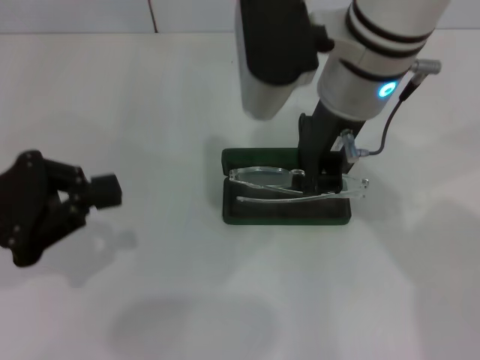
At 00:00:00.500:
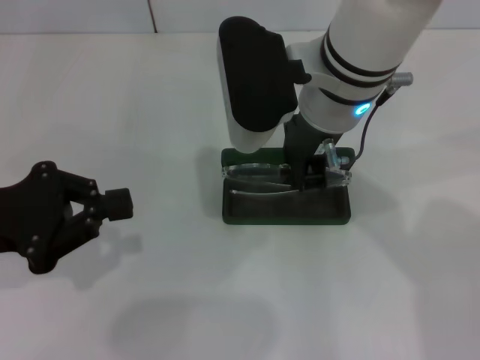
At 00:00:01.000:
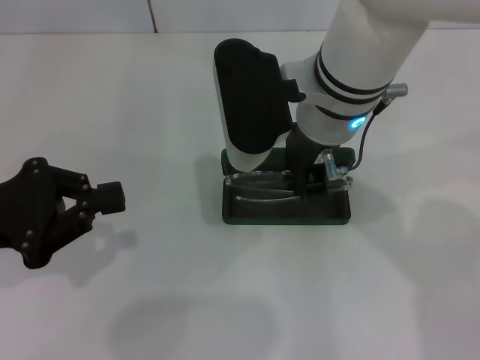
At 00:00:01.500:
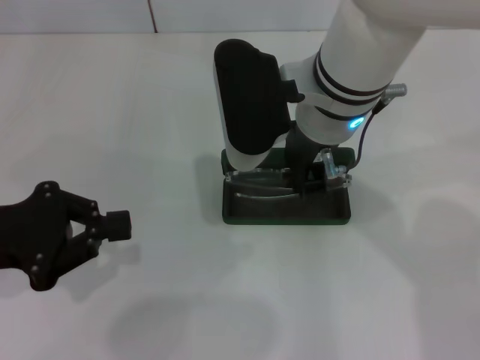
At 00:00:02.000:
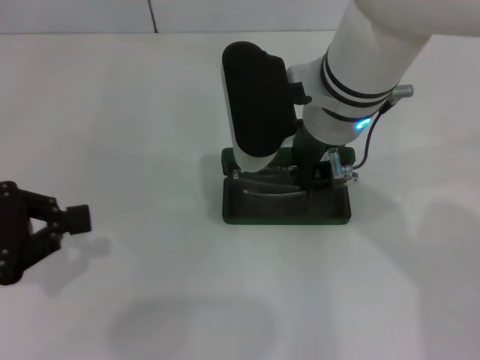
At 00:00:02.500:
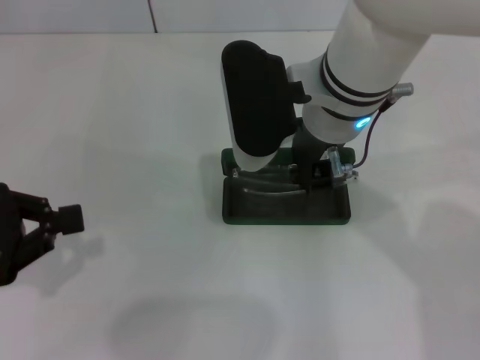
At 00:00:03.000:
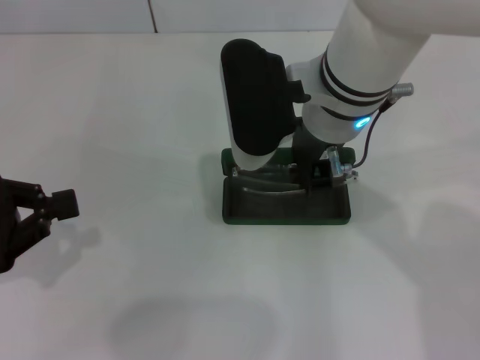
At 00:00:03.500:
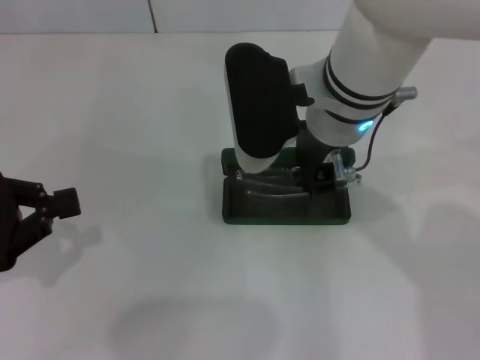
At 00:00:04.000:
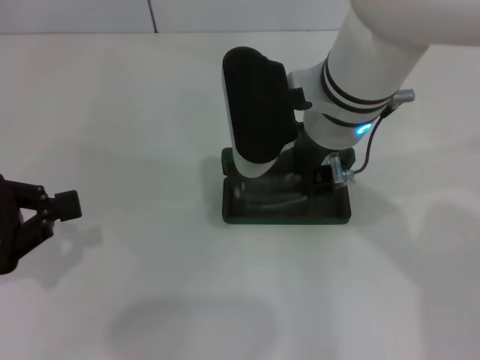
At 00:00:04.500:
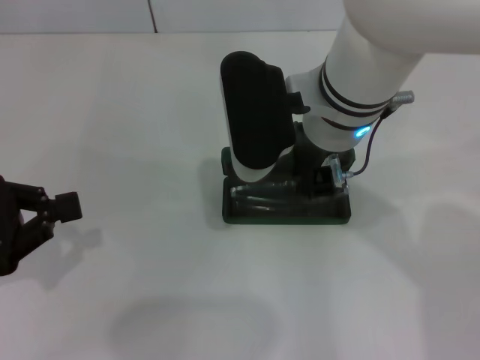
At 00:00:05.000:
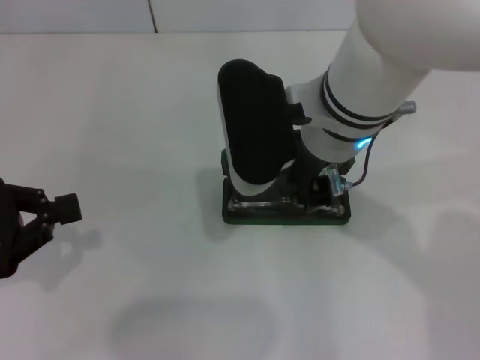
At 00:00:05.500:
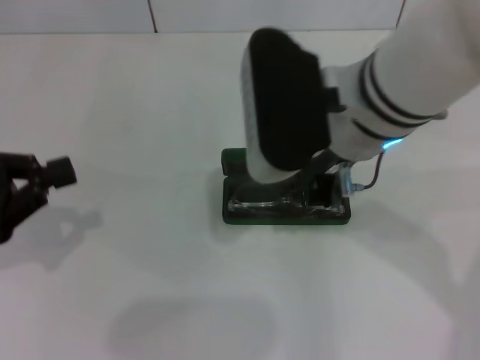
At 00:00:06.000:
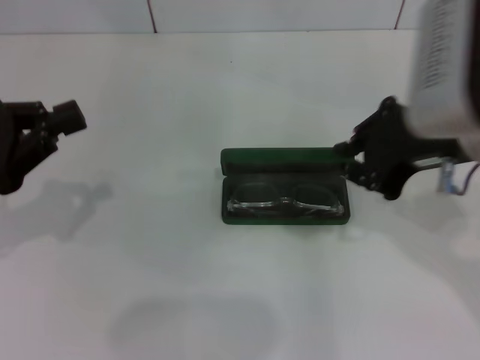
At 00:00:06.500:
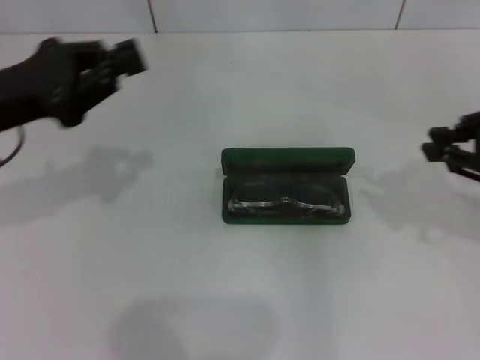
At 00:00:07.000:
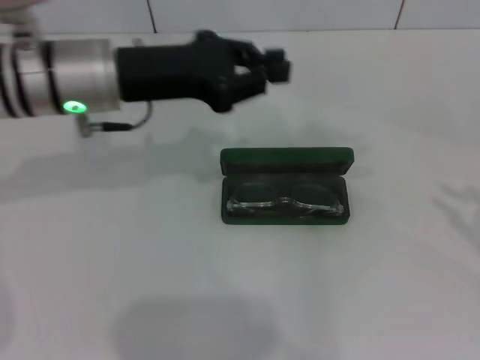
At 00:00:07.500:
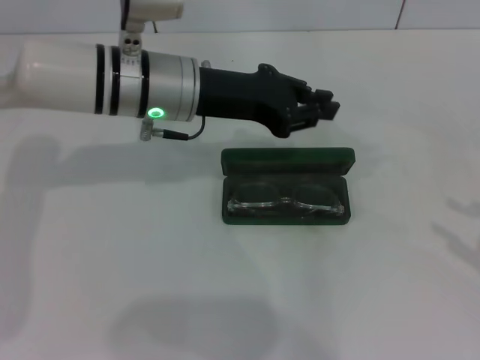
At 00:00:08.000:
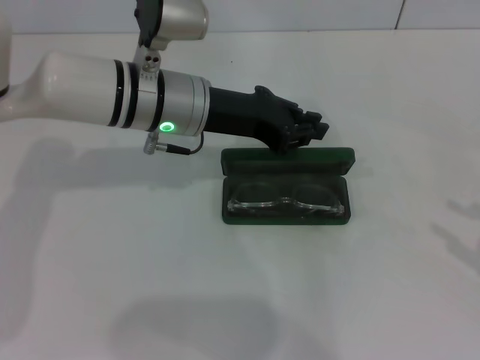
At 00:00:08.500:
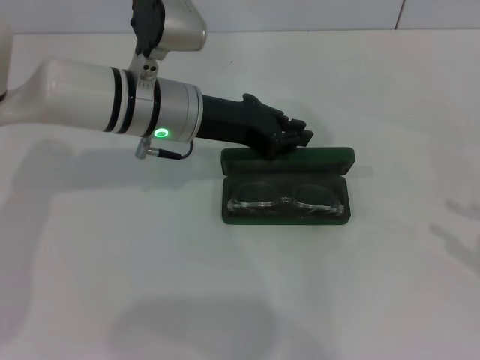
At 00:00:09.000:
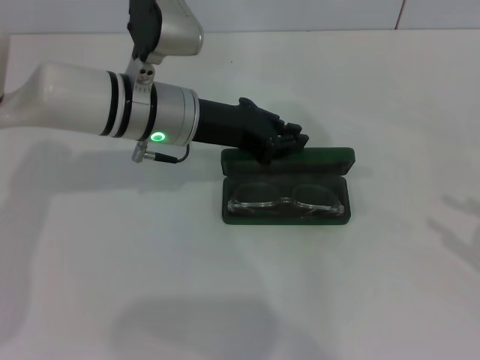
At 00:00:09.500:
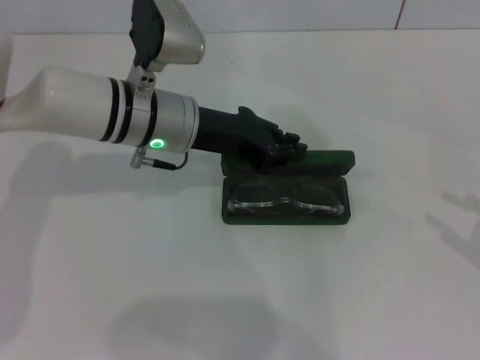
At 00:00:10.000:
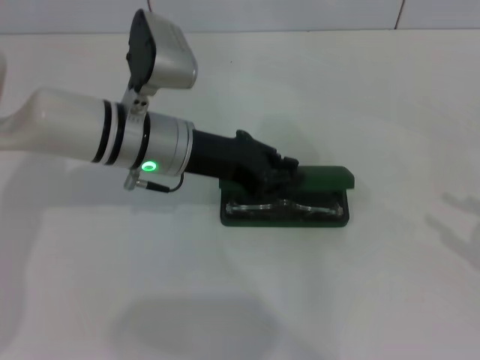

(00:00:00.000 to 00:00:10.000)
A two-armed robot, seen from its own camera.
Step, 00:00:00.000 - 00:00:04.500: Put the glasses into the case with your right hand.
00:00:00.000 - 00:00:02.000: The grippers stay close to where they were, moving slightly.
00:00:02.000 - 00:00:04.000: Both grippers stay put.
00:00:04.000 - 00:00:06.000: The right gripper goes roughly 15 cm to the right and backward.
00:00:06.000 - 00:00:08.000: The left gripper is displaced to the right and forward by some 25 cm. The right gripper is displaced to the right and downward by some 25 cm, and opens its fingers.
00:00:08.000 - 00:00:10.000: The grippers make only small movements.

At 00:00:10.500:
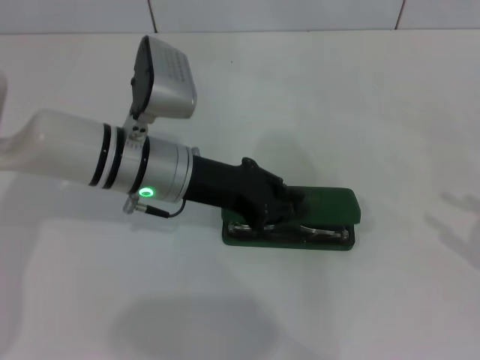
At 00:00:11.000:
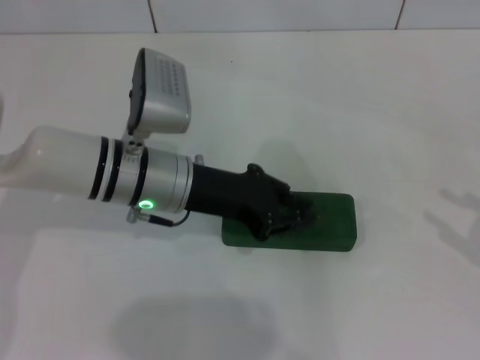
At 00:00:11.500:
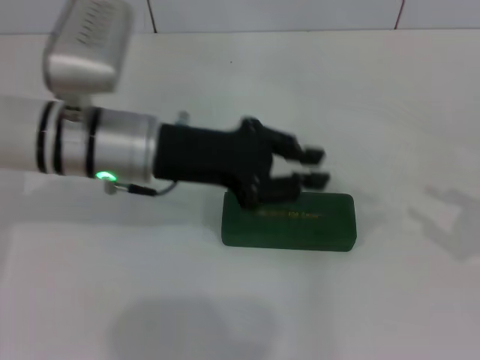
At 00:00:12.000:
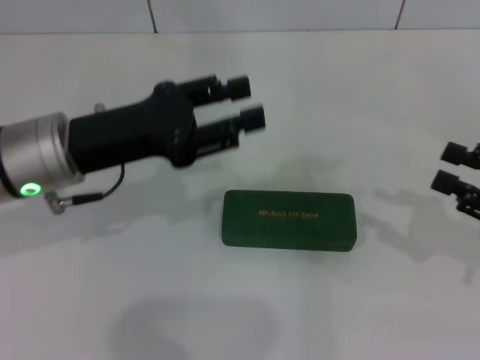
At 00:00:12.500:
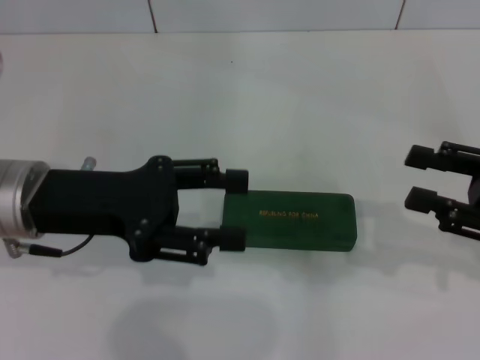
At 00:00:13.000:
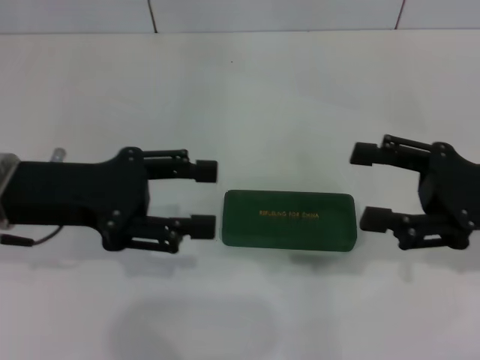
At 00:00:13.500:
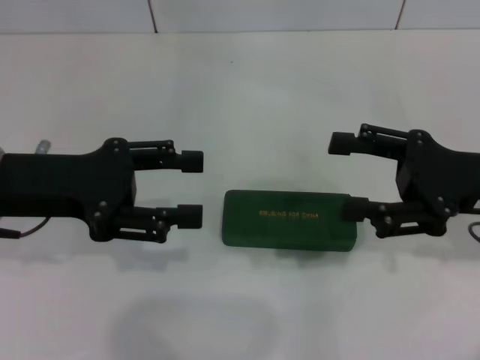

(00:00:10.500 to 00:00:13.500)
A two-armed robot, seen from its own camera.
00:00:10.500 - 00:00:12.000: The grippers both shift to the left by some 5 cm.
00:00:12.000 - 00:00:13.500: The right gripper moves to the left, some 10 cm; the left gripper shifts by approximately 5 cm, and opens up.

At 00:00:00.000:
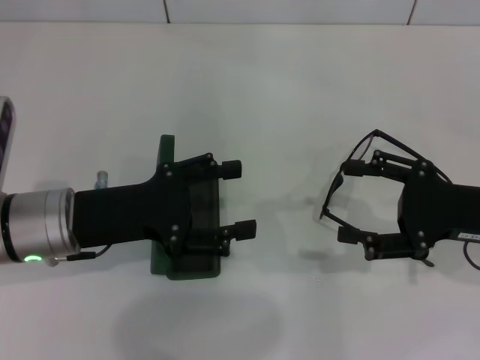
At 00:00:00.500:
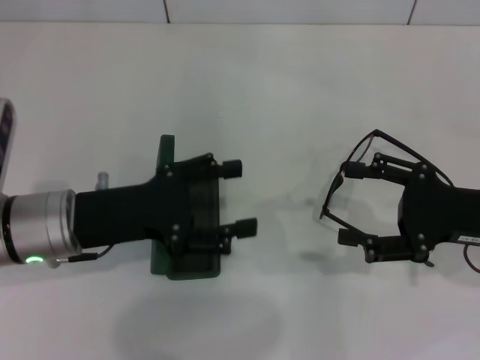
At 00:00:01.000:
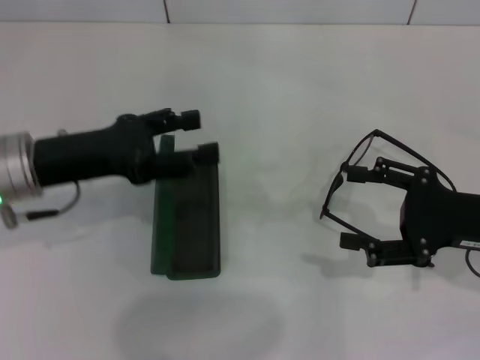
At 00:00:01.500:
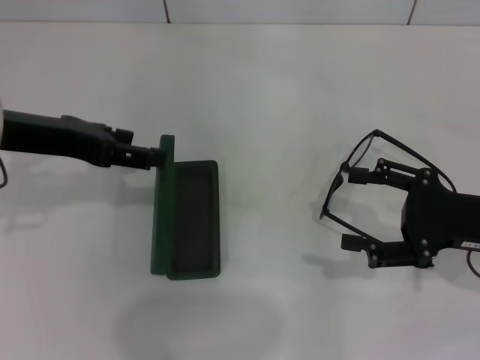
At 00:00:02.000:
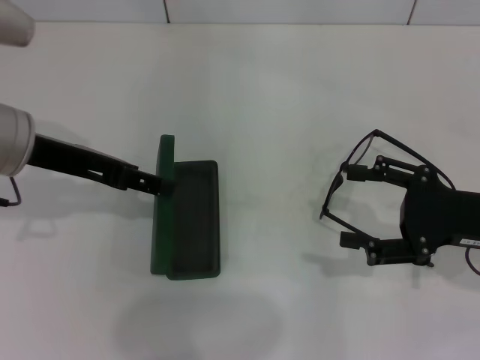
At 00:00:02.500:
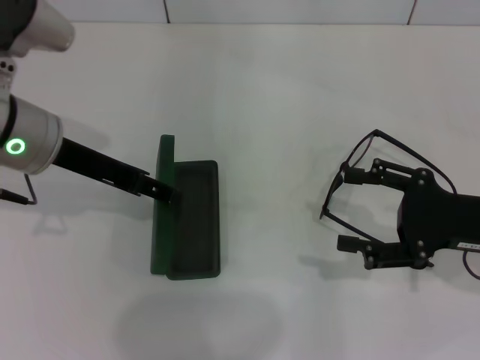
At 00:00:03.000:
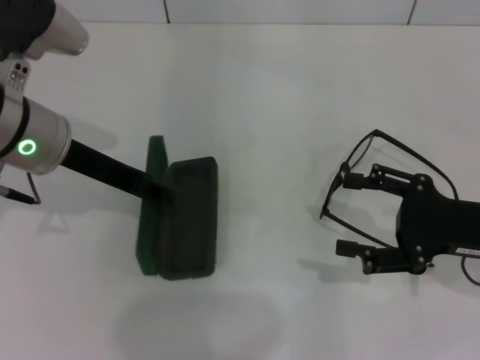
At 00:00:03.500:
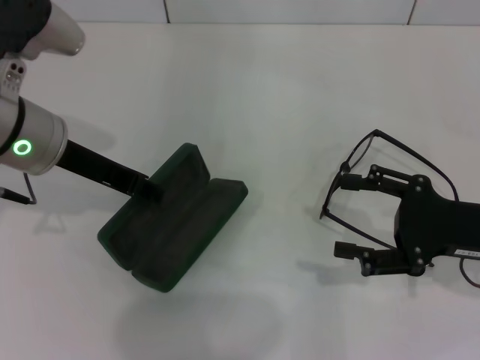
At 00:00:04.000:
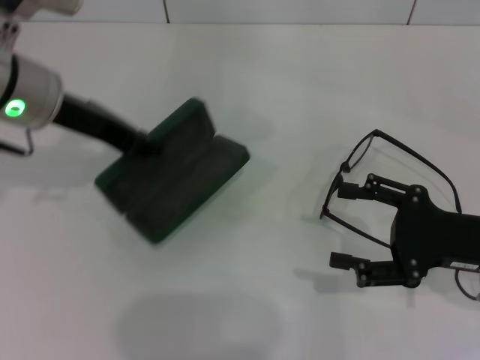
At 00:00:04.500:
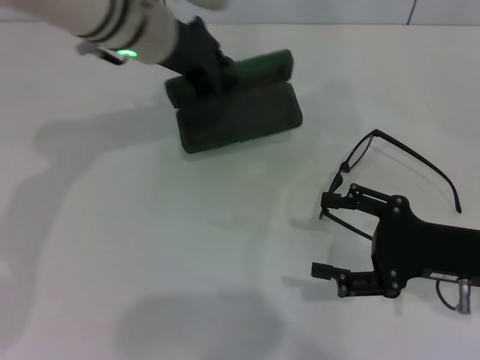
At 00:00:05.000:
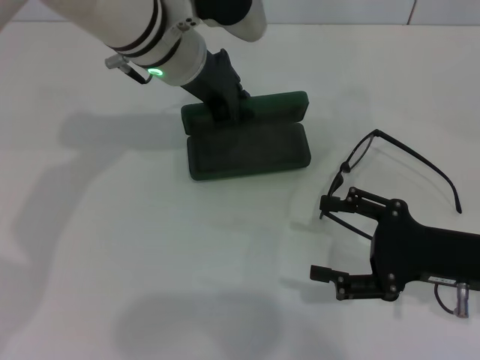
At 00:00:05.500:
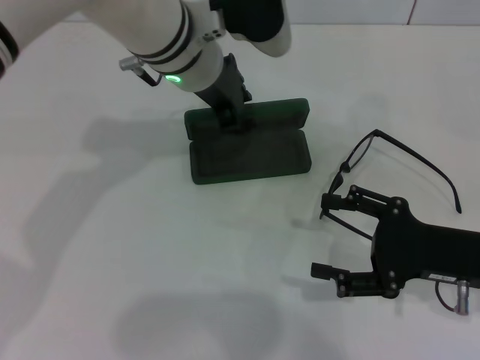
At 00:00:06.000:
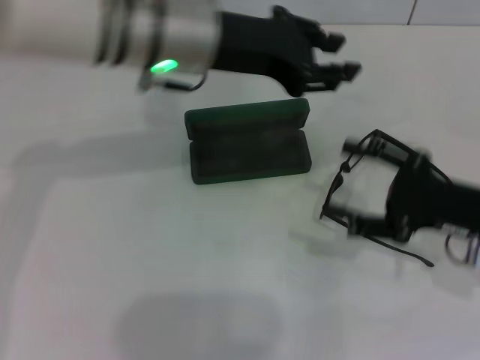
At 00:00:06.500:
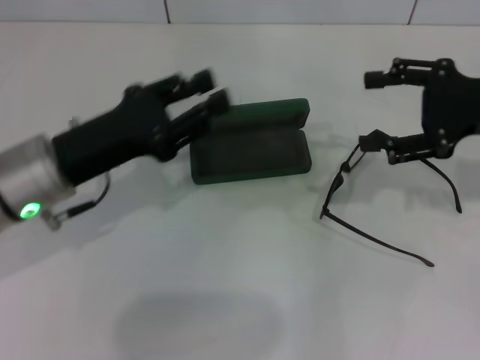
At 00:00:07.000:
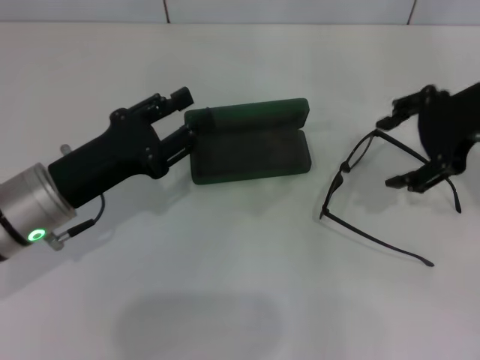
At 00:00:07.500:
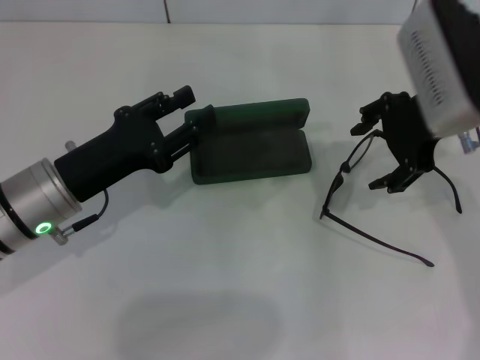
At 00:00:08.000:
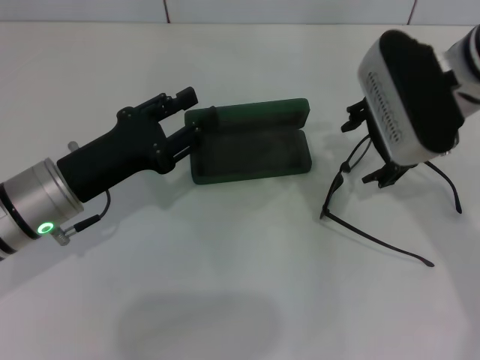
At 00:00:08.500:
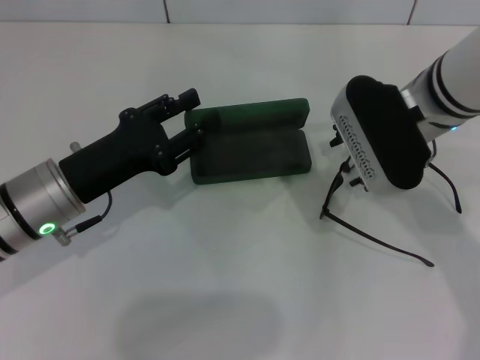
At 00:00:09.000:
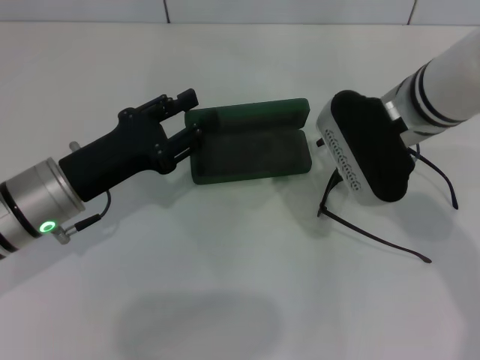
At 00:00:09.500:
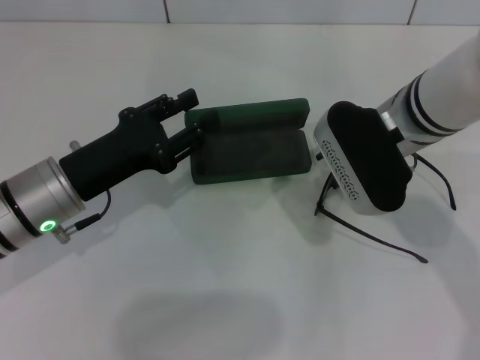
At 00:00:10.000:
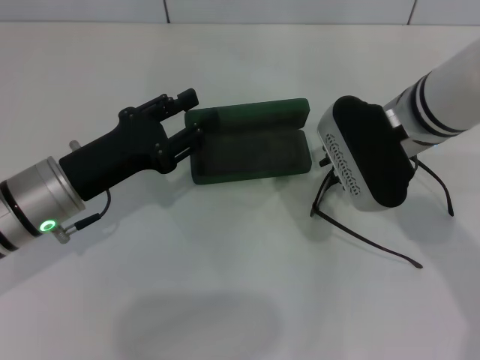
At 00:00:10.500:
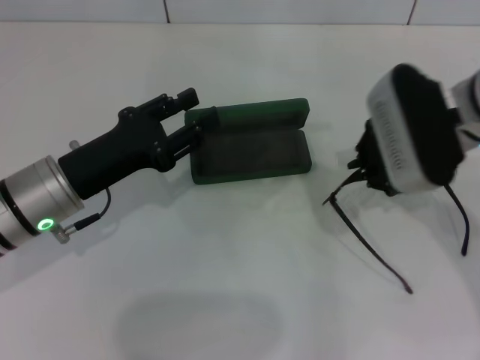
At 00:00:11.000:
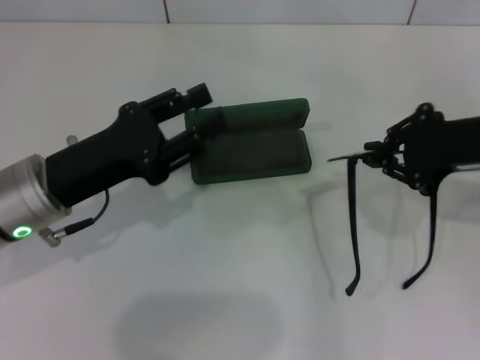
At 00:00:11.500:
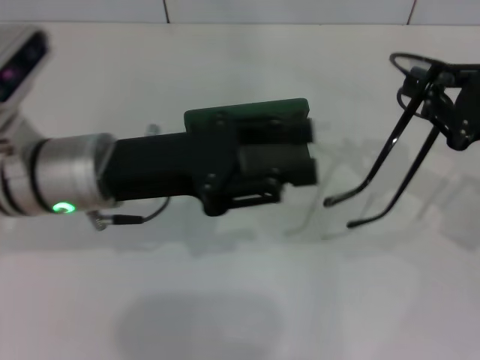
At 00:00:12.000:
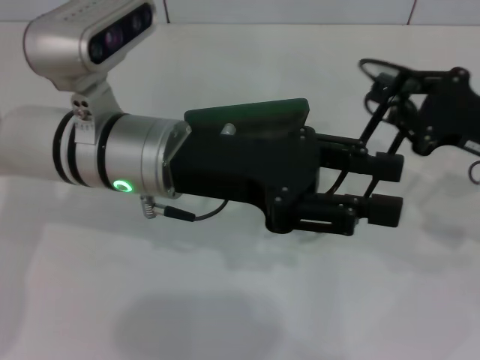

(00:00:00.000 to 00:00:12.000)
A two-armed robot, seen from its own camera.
Step, 00:00:00.000 - 00:00:03.500: Grab the glasses case with your left hand.
Step, 00:00:04.000 - 00:00:05.000: Place the glasses case in the center of the table with your left hand.
Step, 00:00:05.500 - 00:00:10.000: Grab the eyeglass frame with your right hand.
00:00:00.000 - 00:00:02.000: The left gripper travels upward by some 10 cm.
00:00:02.000 - 00:00:04.000: The left gripper shifts by about 5 cm, and closes its fingers.
00:00:04.000 - 00:00:06.000: The left gripper goes about 10 cm to the right.
00:00:06.000 - 00:00:08.000: The right gripper travels upward, to the left and forward by some 20 cm. The left gripper moves downward, to the left and backward, some 20 cm.
00:00:08.000 - 00:00:10.000: The right gripper ends up about 5 cm from where it was, and closes up.
00:00:10.000 - 00:00:12.000: The right gripper heads to the right, covering roughly 15 cm. The left gripper shifts some 15 cm to the right and upward.
